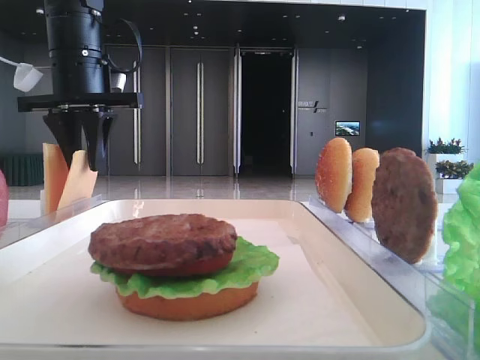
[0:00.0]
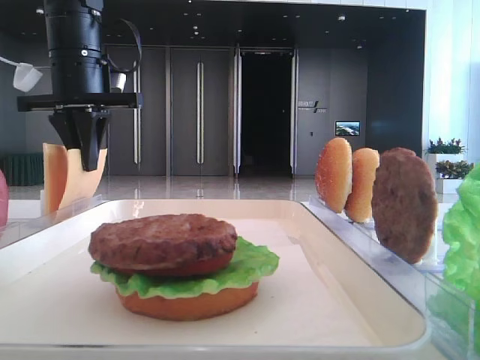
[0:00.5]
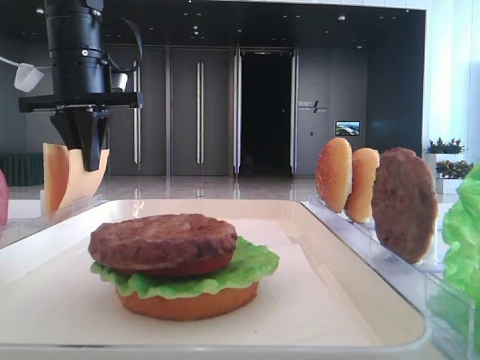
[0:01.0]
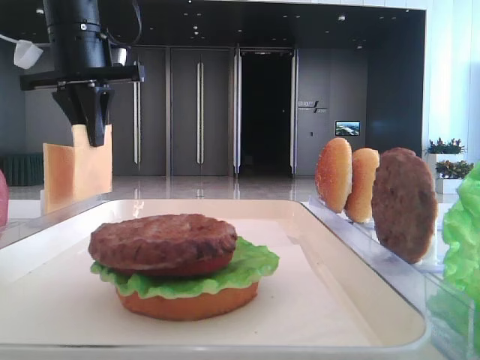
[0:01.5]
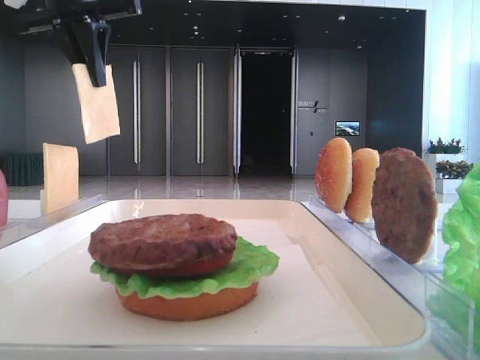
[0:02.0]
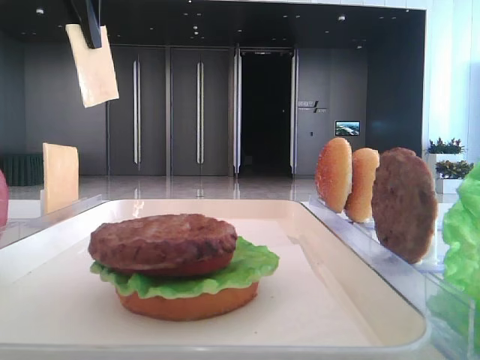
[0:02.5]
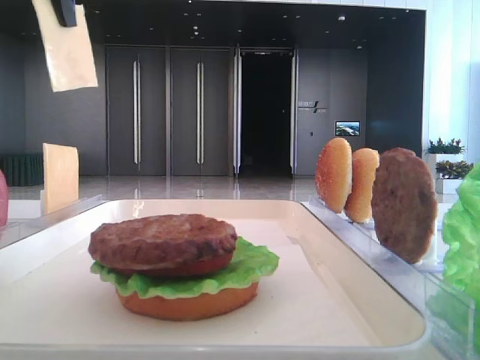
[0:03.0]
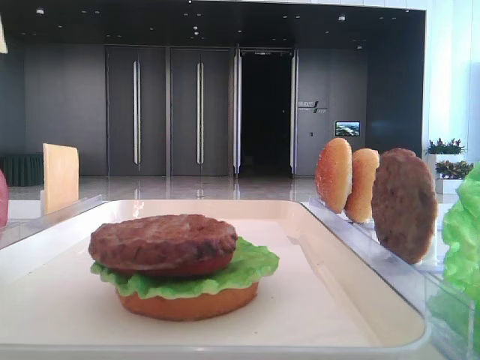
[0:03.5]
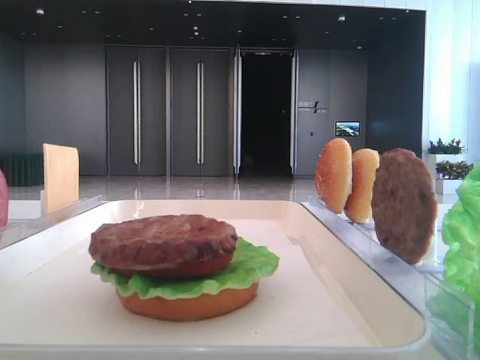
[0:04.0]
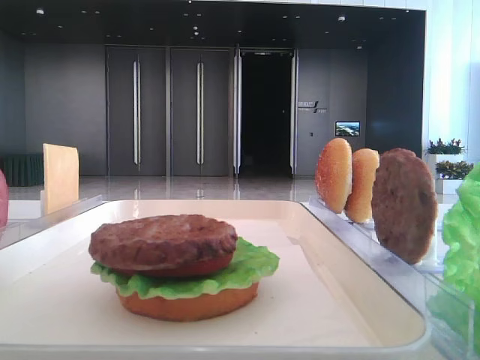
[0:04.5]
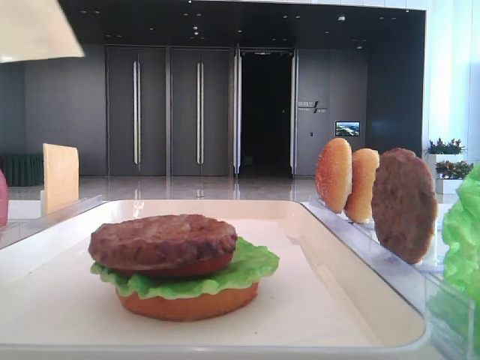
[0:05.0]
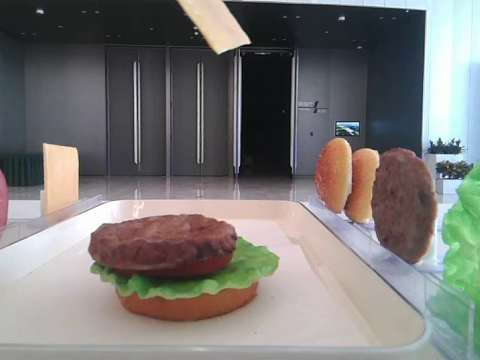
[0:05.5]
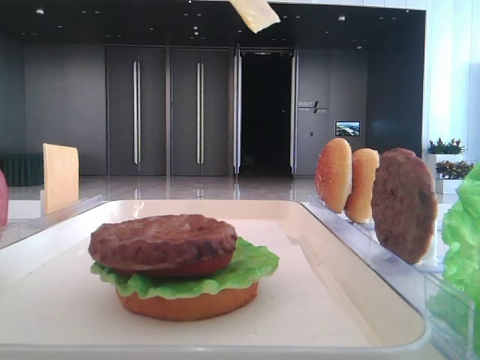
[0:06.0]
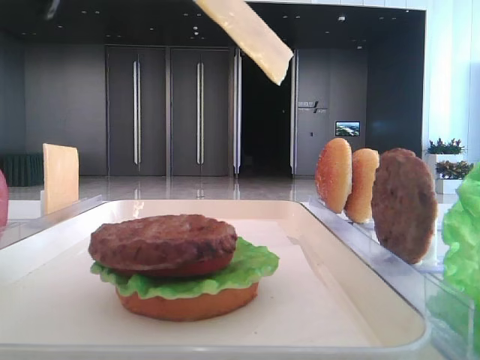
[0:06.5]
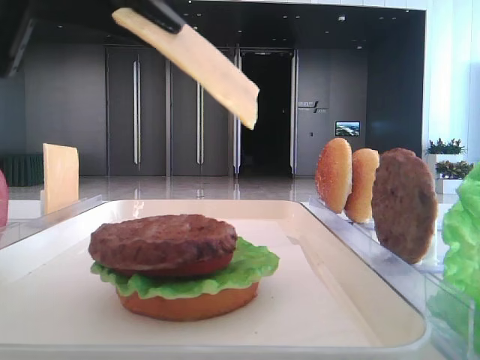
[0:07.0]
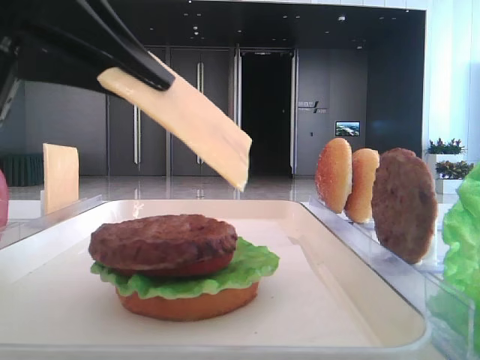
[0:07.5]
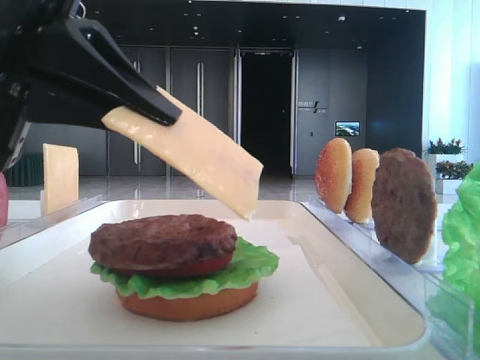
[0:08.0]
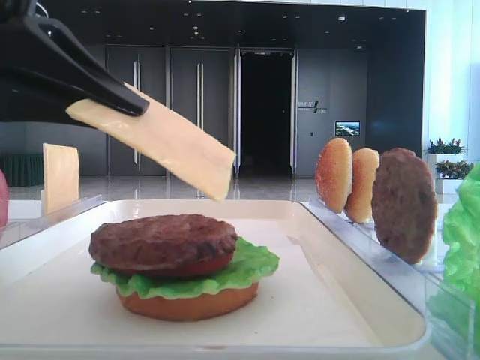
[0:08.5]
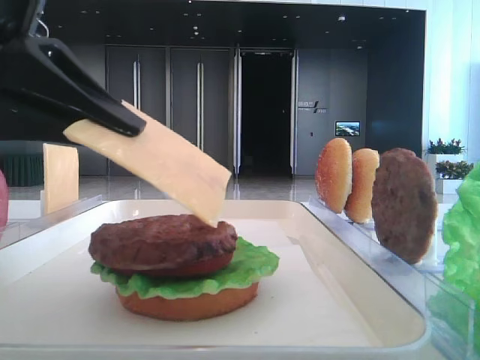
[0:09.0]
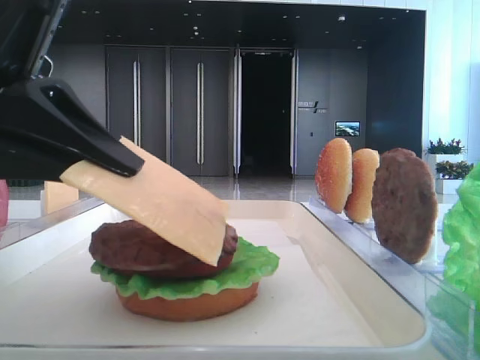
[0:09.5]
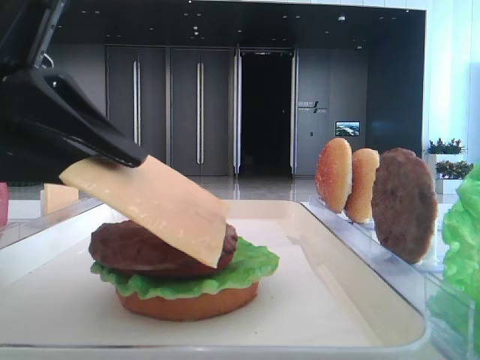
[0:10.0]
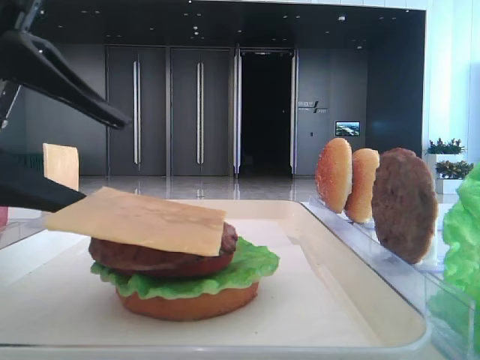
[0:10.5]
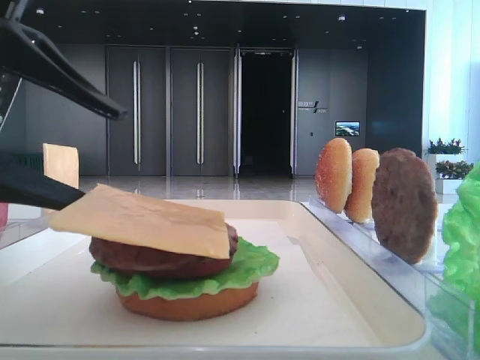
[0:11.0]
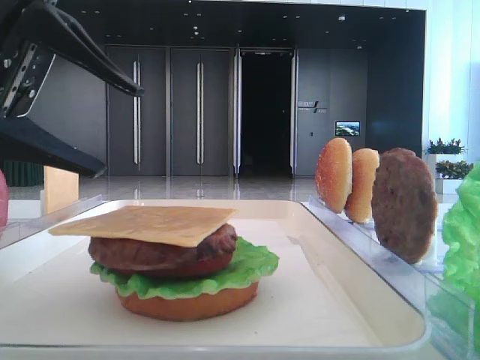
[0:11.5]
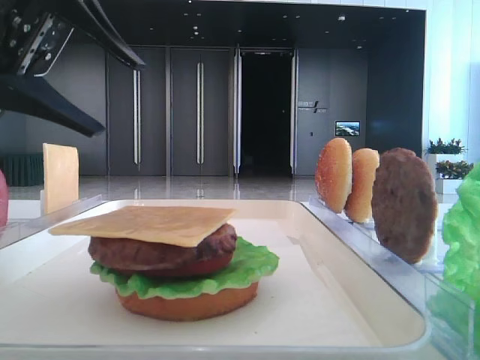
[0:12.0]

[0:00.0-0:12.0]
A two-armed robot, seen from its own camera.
Step, 0:01.5 to 0:11.0: Place the cheese slice on the patty with the left hand.
0:00.0 to 0:02.0: The left gripper moves upward, some 10 cm.
0:02.0 to 0:04.0: The left gripper heads backward, covering approximately 25 cm.
0:06.0 to 0:08.0: The left gripper heads downward, covering some 15 cm.
0:08.0 to 0:10.0: There are only small adjustments of the grippers.
0:10.0 to 0:12.0: The left gripper moves upward and forward, about 10 cm, and opens up.

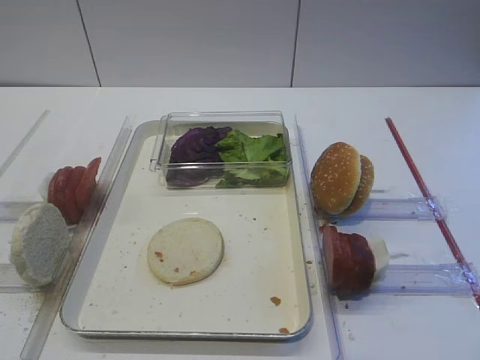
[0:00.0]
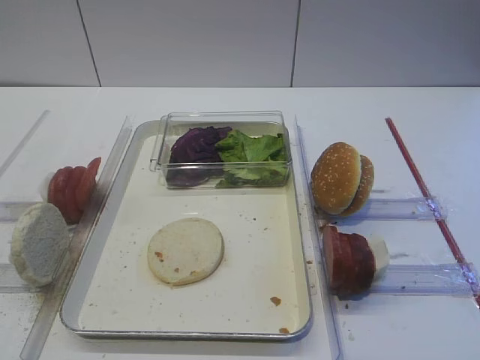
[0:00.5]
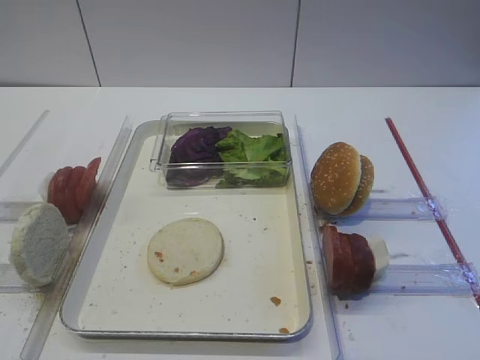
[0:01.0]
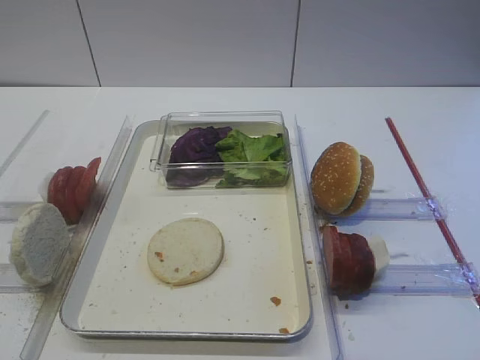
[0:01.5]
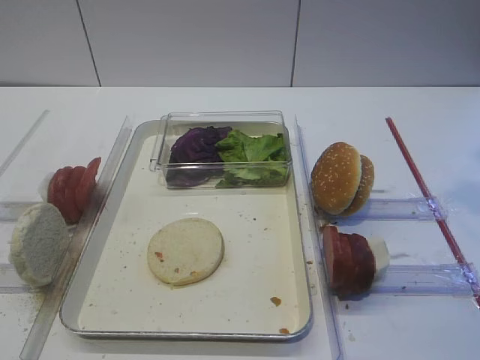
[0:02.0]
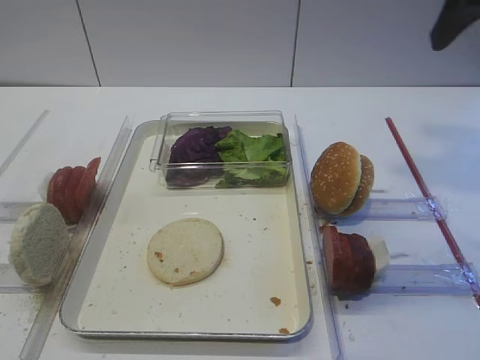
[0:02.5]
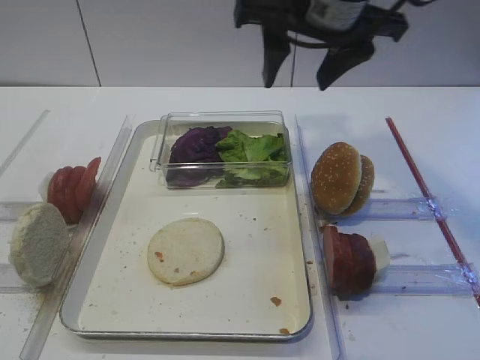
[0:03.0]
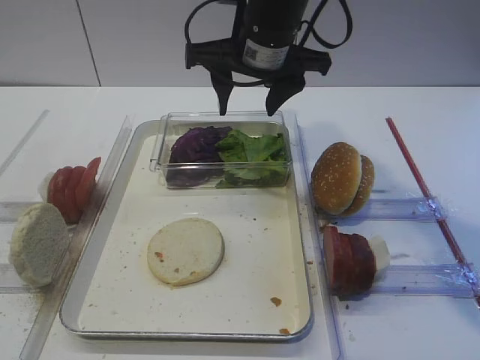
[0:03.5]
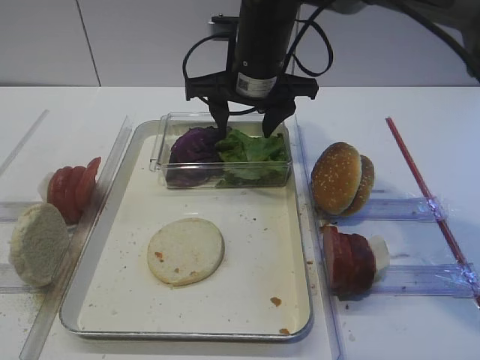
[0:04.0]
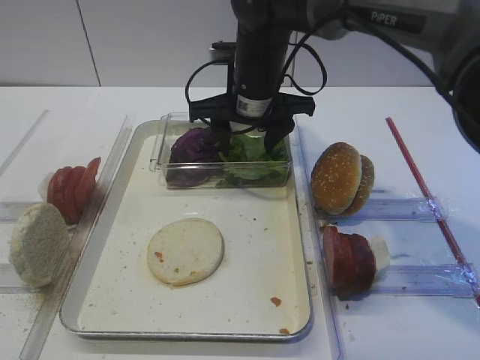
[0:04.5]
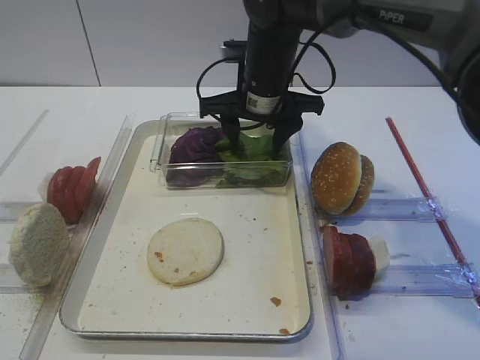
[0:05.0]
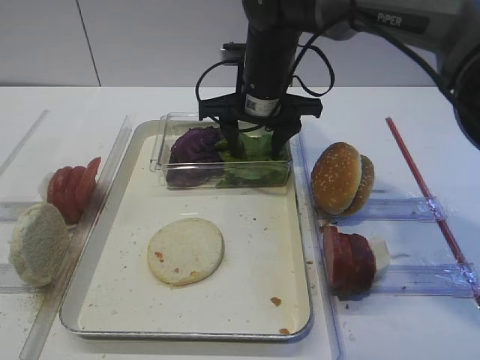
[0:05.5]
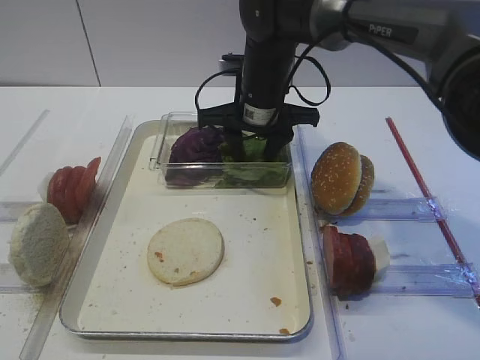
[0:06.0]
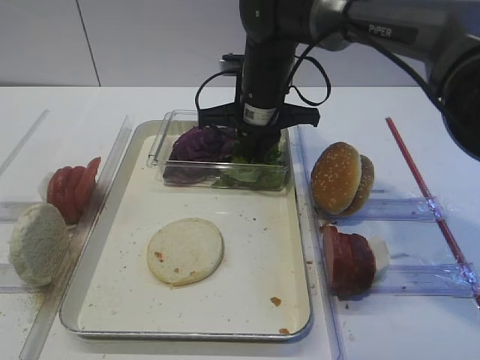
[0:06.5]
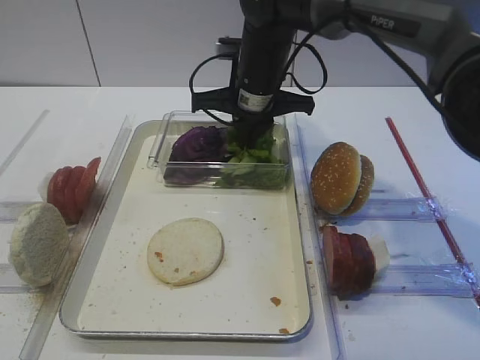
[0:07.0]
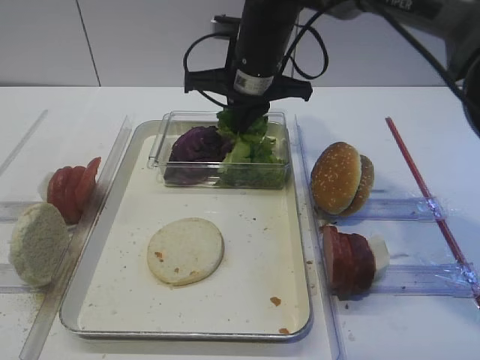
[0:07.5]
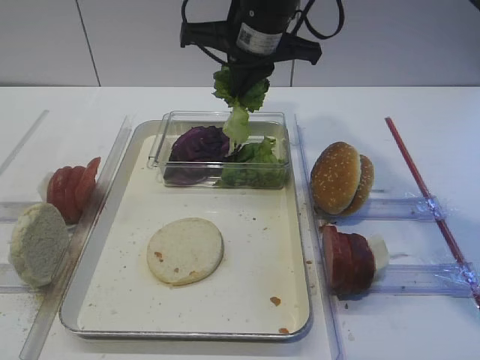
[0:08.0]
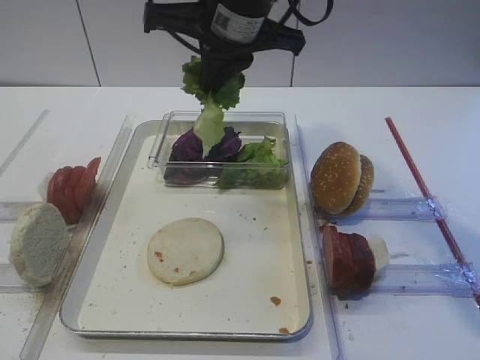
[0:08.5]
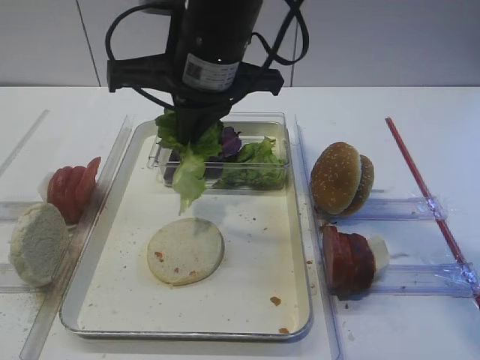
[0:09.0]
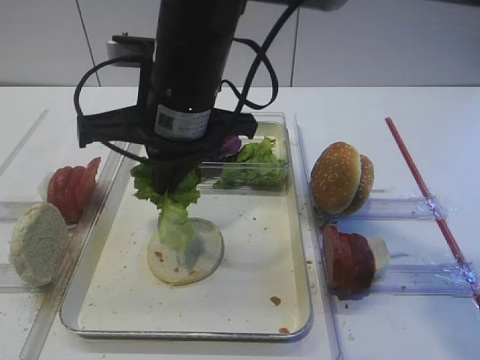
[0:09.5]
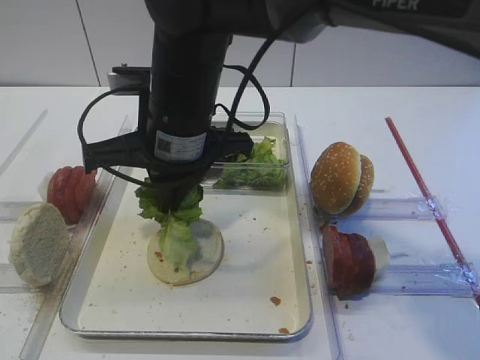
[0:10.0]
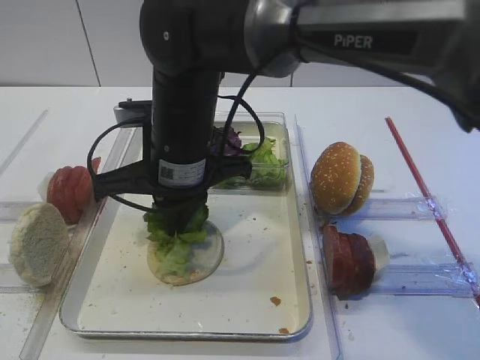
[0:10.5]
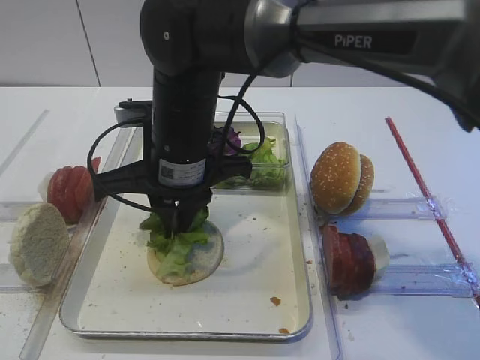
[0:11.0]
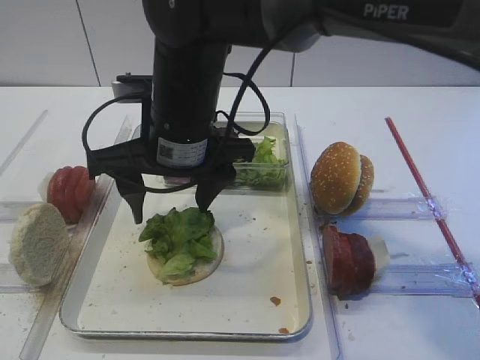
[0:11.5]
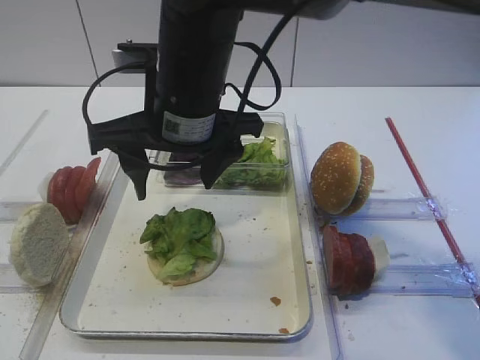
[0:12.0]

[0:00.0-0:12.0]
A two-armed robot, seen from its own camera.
Step, 0:00.0 to 0:07.5: Pick up the lettuce leaf with the right gripper.
Step, 0:08.0 to 0:11.5: Place the lettuce leaf on the bread slice with the right gripper.
0:02.0 to 0:04.0: The right gripper goes some 35 cm to the left, forward and downward.
0:04.0 to 0:06.0: The right gripper goes approximately 5 cm downward.
0:06.0 to 0:08.0: The right gripper moves upward, approximately 10 cm, and closes its fingers.
0:08.0 to 0:10.0: The right gripper travels backward and to the left by roughly 15 cm.
0:10.0 to 0:12.0: The right gripper opens.

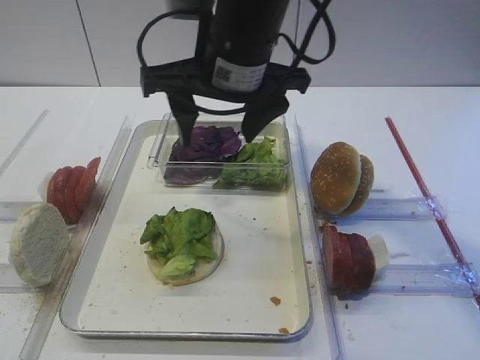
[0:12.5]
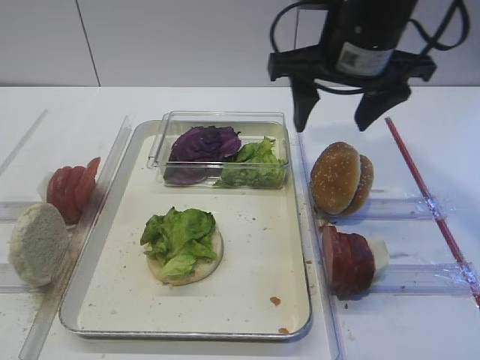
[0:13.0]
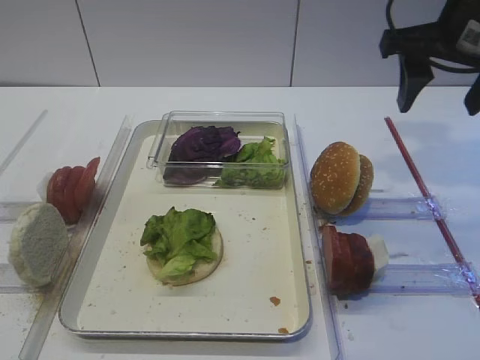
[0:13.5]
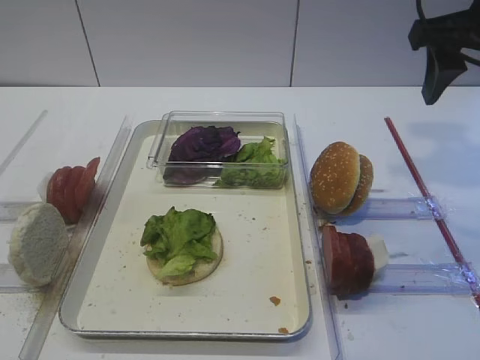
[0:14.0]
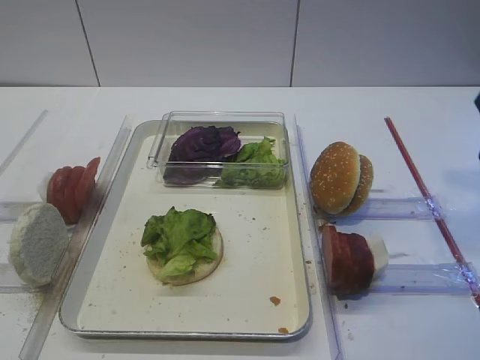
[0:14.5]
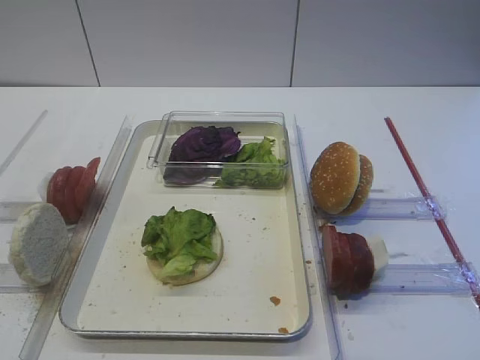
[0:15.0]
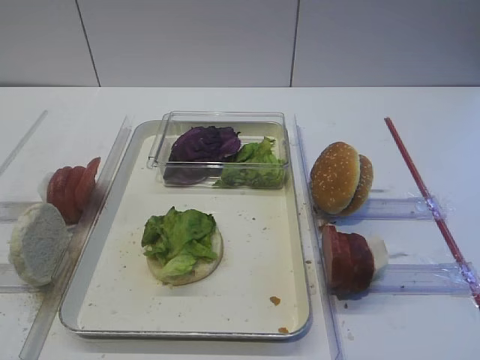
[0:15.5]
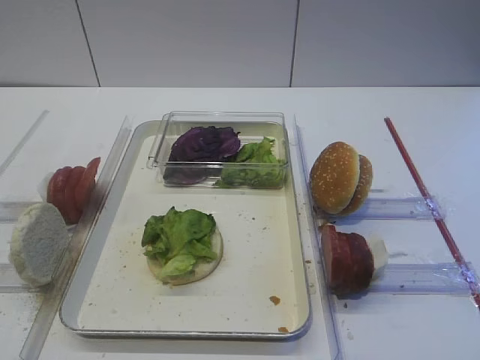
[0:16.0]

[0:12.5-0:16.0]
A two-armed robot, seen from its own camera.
0:12.5 to 0:14.5: The right gripper shifts approximately 25 cm to the right.
